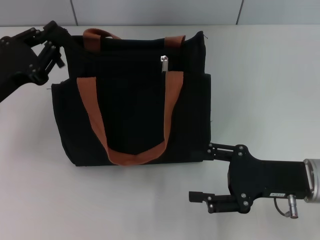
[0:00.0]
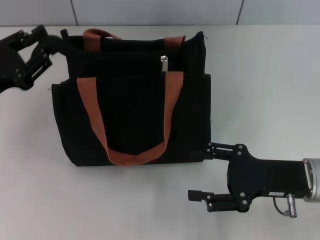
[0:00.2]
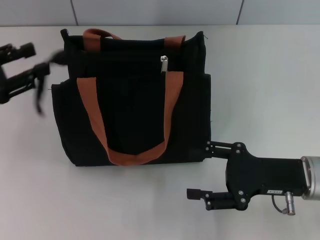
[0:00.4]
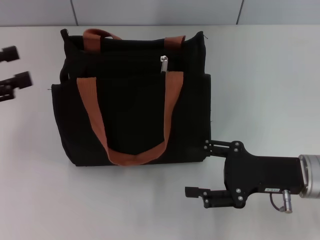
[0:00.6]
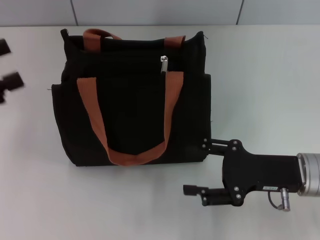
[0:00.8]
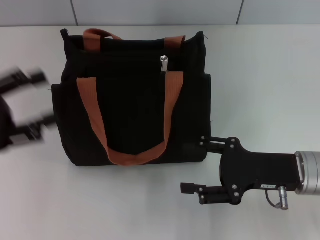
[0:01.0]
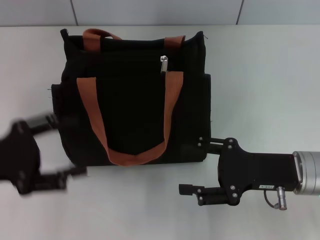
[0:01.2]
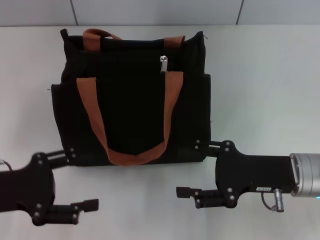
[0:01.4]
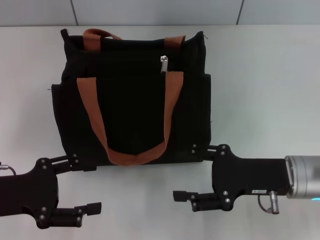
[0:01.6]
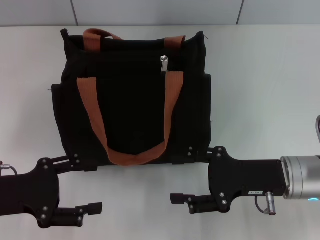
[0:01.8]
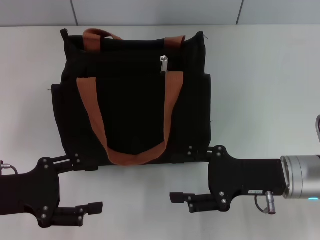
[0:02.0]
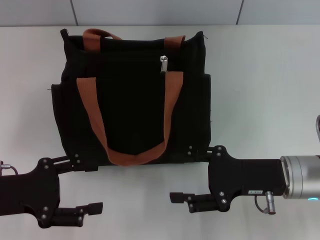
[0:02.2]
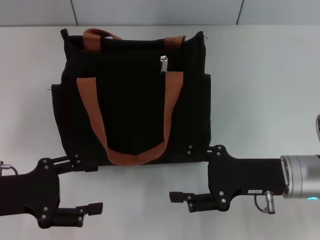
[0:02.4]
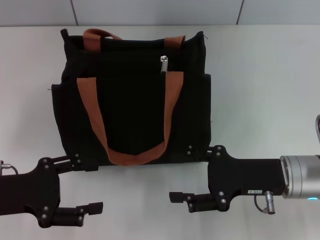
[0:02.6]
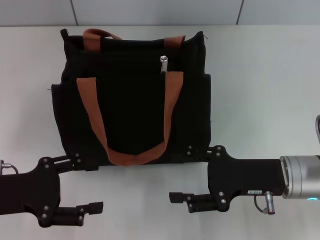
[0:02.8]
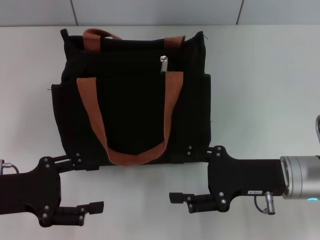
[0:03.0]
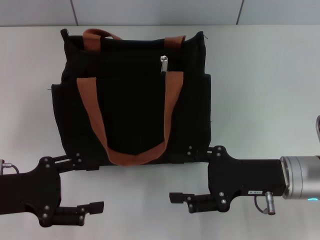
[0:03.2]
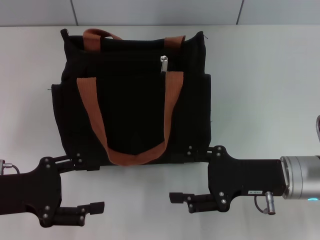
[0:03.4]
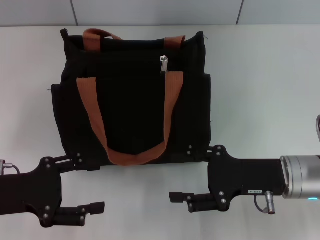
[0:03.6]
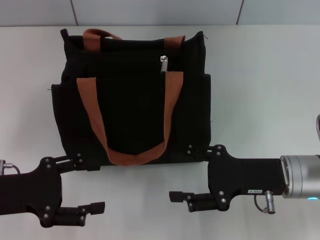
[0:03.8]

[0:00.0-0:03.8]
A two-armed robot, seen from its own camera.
0:00.0 to 0:01.2: The left gripper moves backward, approximately 5 cm, and opens its fingers.
0:01.2 to 0:02.6: The left gripper changes place by approximately 5 cm.
0:02.6 to 0:03.8: Both grippers stay put.

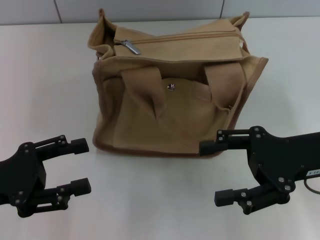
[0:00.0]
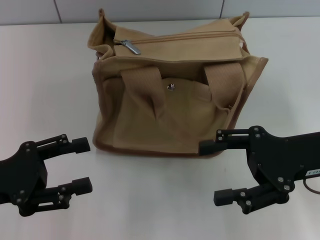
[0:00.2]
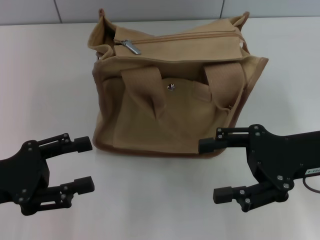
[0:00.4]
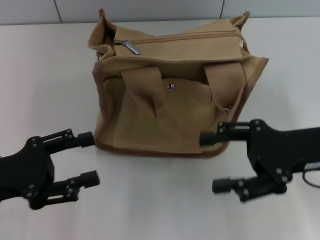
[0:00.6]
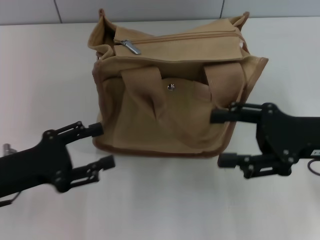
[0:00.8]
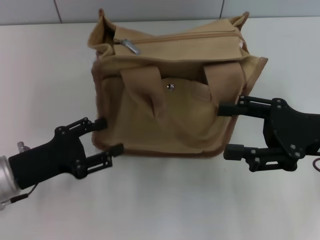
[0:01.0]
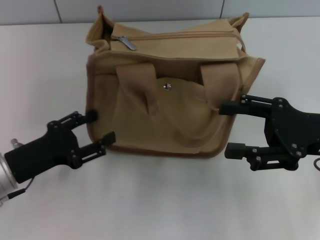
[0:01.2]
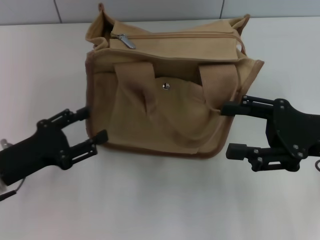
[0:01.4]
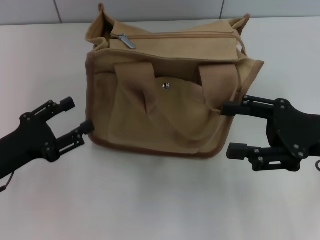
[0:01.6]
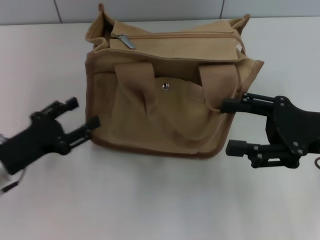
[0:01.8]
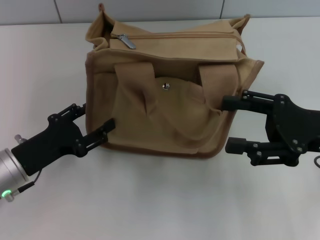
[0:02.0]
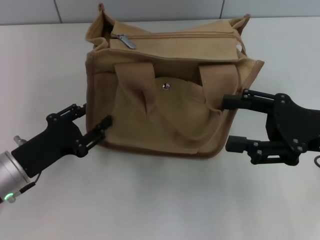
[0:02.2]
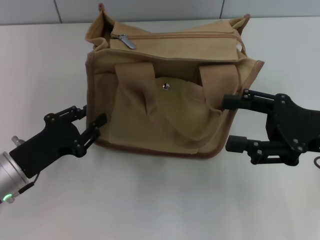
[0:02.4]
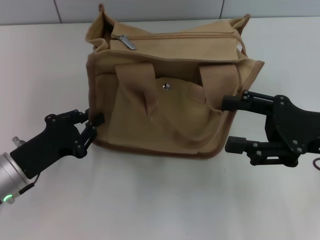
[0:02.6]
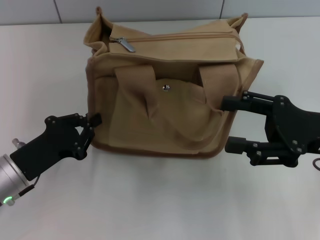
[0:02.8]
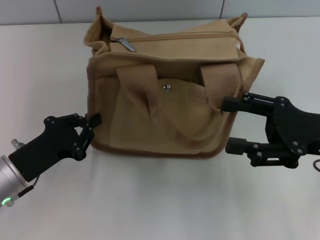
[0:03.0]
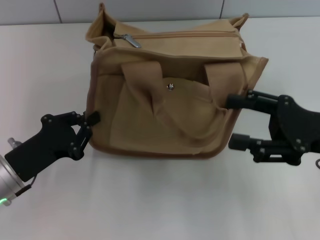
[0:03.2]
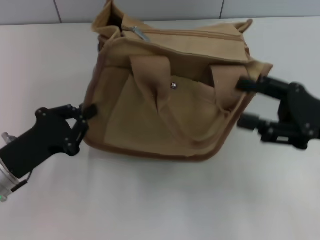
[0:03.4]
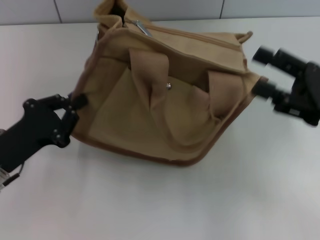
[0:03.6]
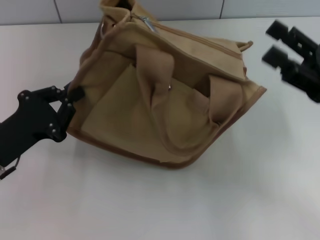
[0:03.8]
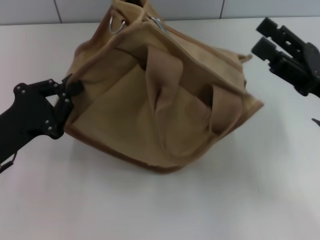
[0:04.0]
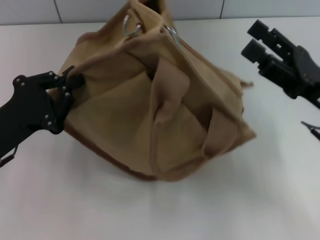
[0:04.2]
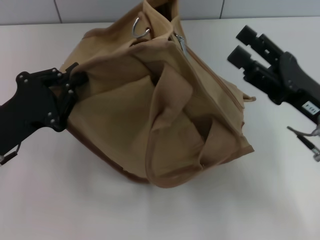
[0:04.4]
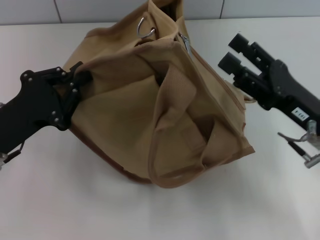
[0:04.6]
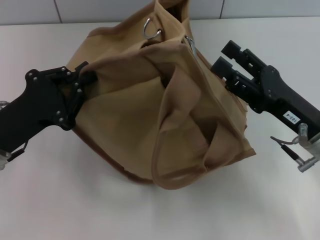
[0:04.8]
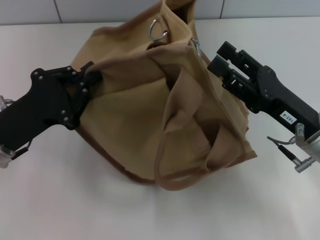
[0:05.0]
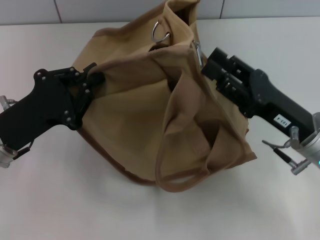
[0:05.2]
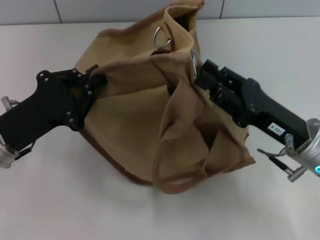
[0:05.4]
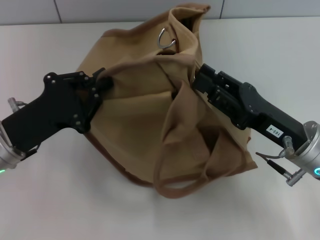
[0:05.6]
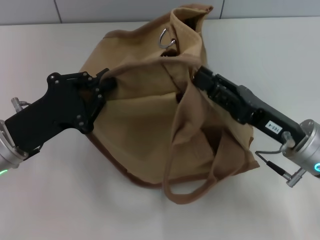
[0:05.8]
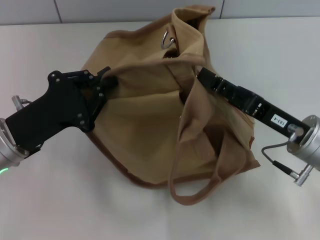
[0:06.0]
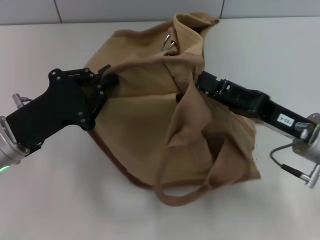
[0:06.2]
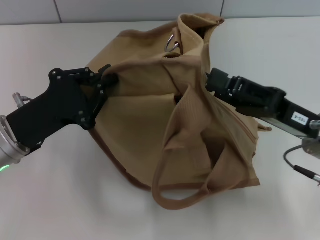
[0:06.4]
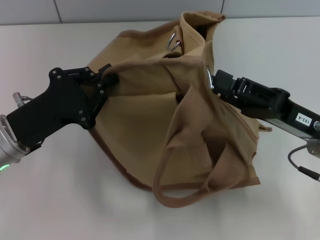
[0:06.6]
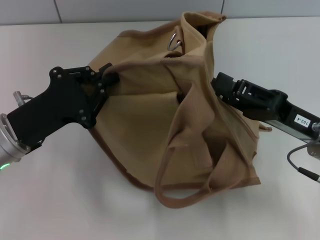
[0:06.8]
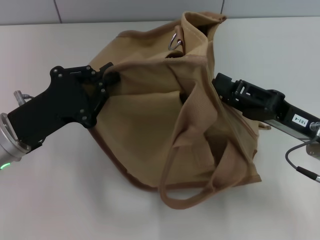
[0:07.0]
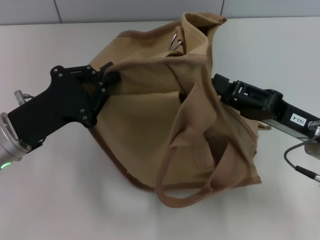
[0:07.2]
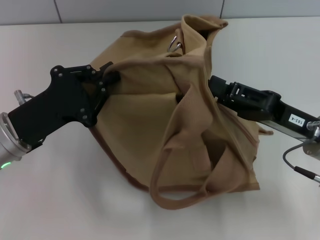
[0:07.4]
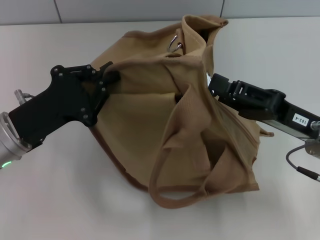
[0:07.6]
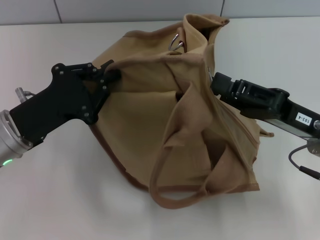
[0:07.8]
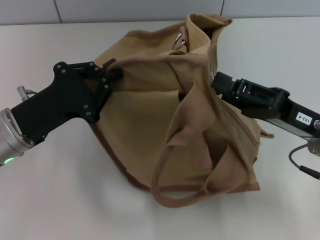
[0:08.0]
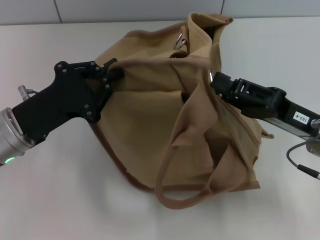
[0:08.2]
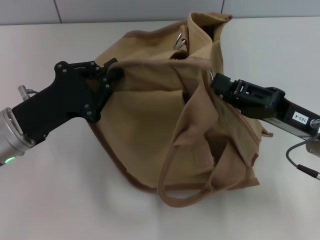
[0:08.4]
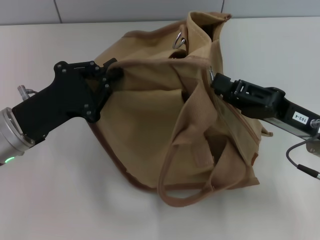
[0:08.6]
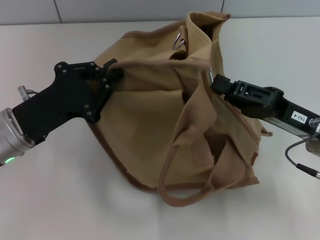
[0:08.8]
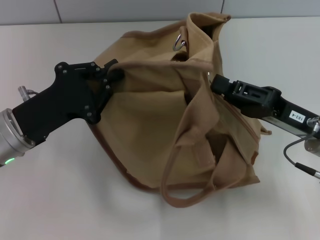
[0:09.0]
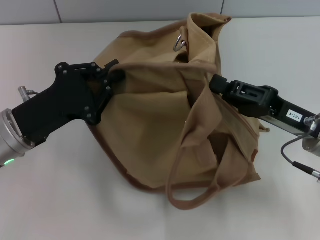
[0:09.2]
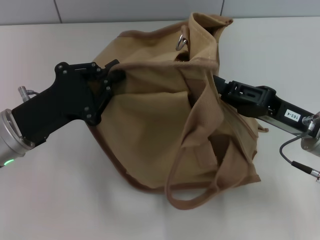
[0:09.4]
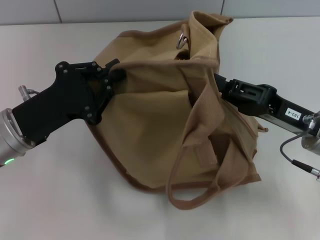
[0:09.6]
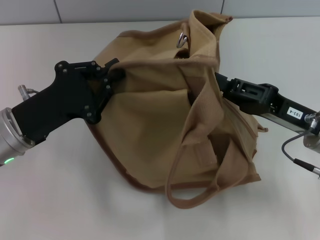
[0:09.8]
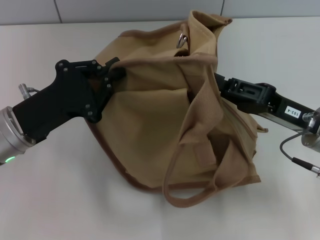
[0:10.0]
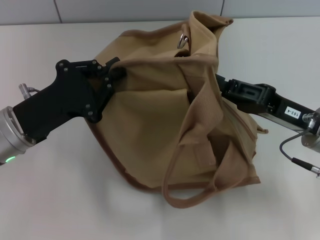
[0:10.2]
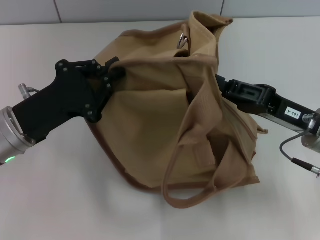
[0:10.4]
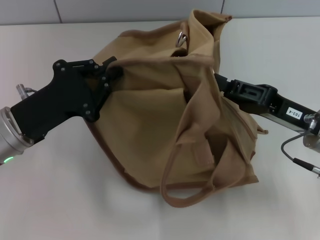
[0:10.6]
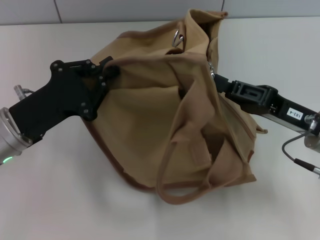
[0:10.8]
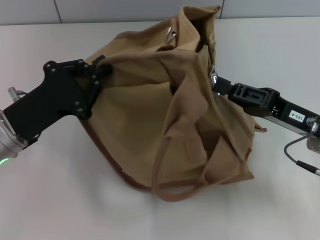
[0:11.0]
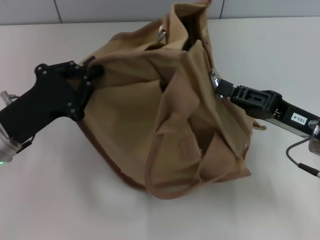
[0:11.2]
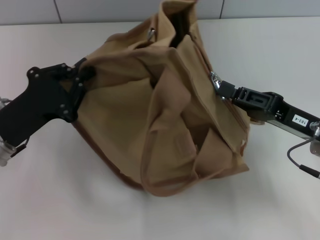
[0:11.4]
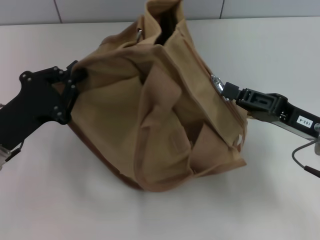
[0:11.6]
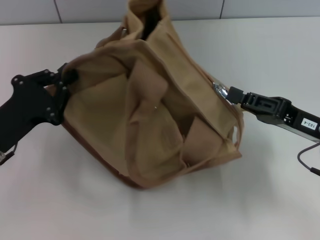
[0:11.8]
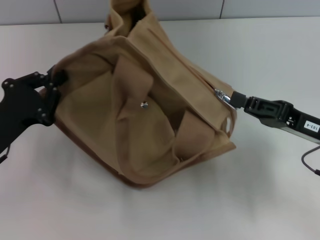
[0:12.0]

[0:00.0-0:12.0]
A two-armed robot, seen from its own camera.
0:01.6 to 0:03.0: The left gripper closes.
0:03.0 to 0:04.4: The left gripper heads upward, covering approximately 5 cm.
0:04.4 to 0:06.0: The right gripper closes its fingers.
0:06.0 to 0:09.0: There are only small adjustments of the grippers.
0:09.0 to 0:10.4: Neither gripper changes place.
0:10.4 to 0:12.0: The left gripper shifts roughly 5 cm to the left.

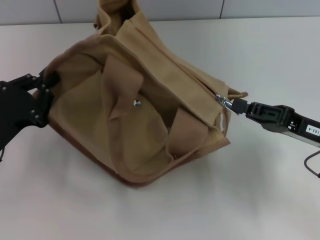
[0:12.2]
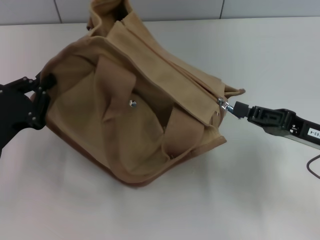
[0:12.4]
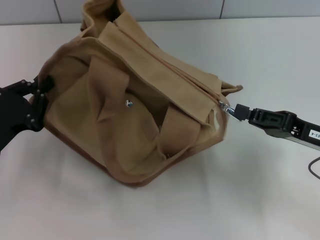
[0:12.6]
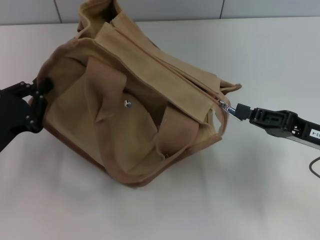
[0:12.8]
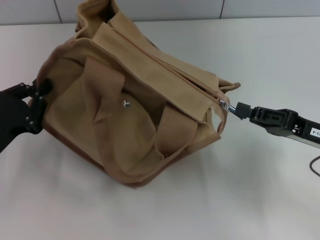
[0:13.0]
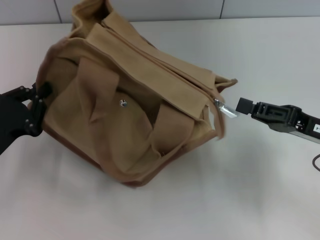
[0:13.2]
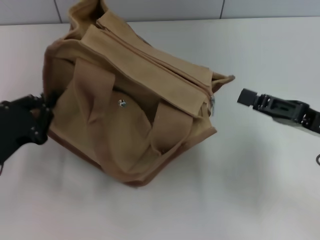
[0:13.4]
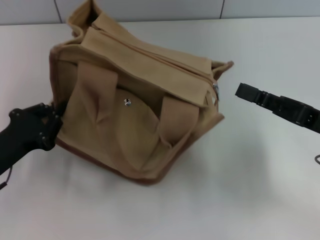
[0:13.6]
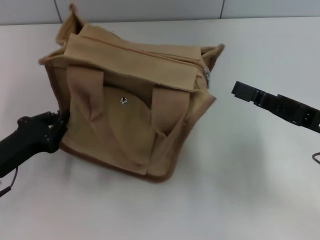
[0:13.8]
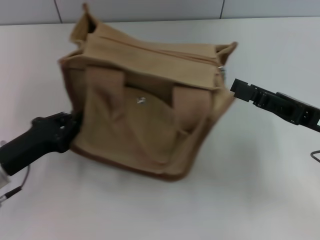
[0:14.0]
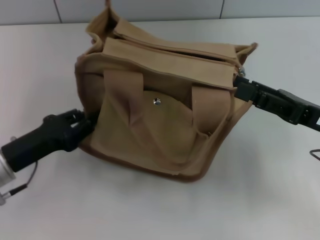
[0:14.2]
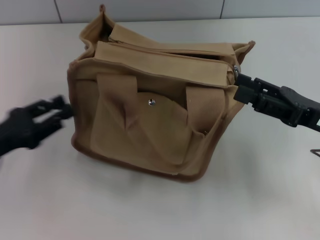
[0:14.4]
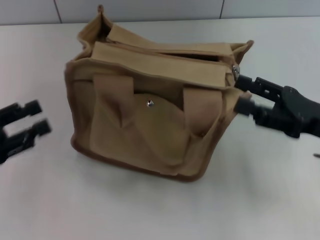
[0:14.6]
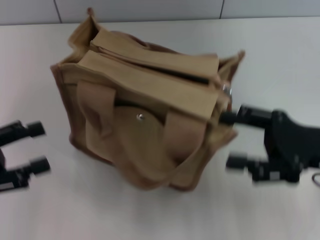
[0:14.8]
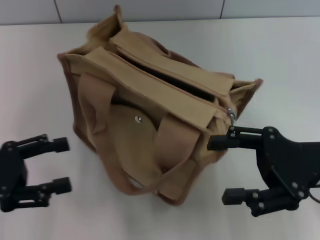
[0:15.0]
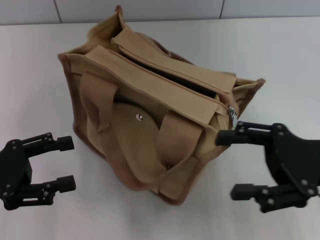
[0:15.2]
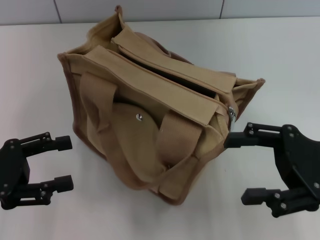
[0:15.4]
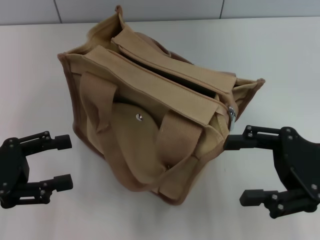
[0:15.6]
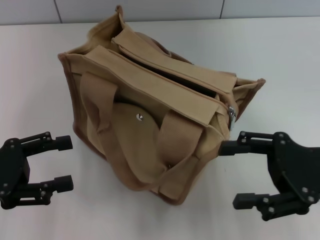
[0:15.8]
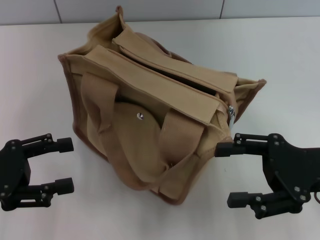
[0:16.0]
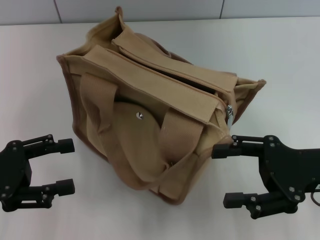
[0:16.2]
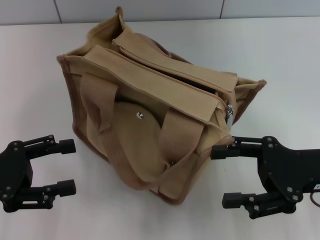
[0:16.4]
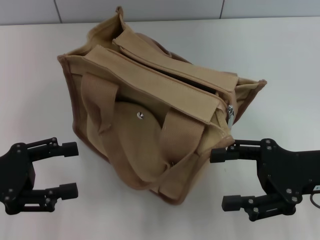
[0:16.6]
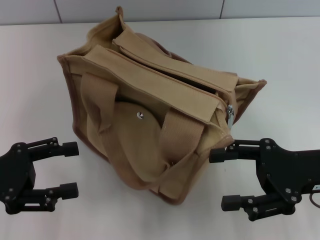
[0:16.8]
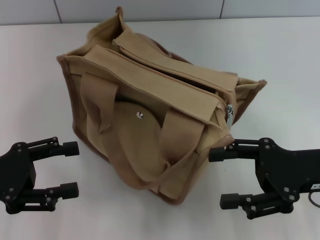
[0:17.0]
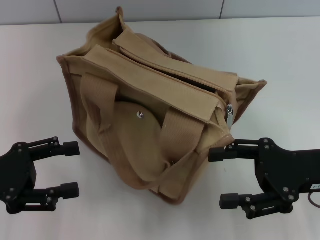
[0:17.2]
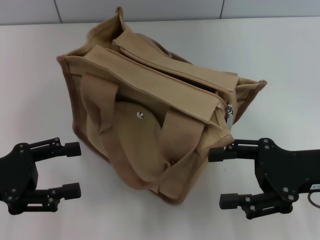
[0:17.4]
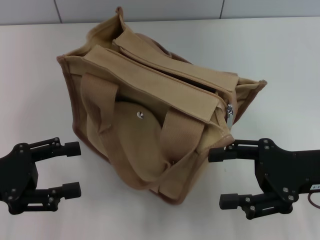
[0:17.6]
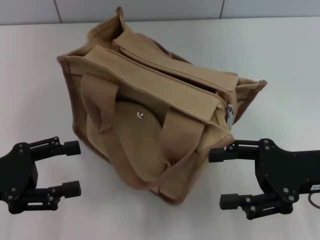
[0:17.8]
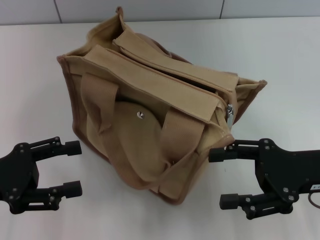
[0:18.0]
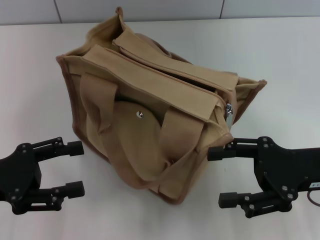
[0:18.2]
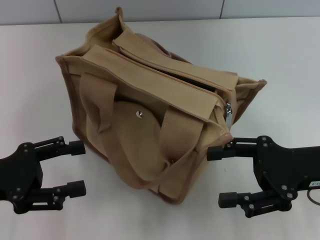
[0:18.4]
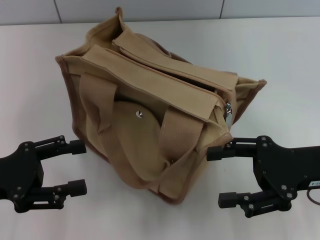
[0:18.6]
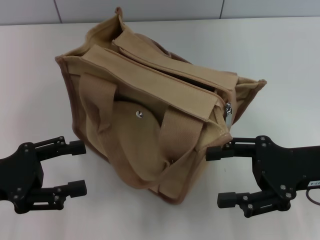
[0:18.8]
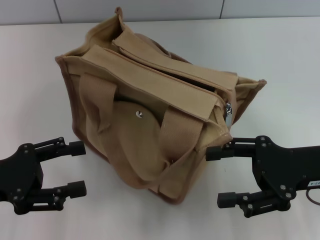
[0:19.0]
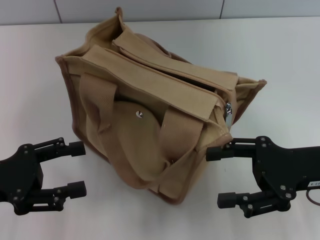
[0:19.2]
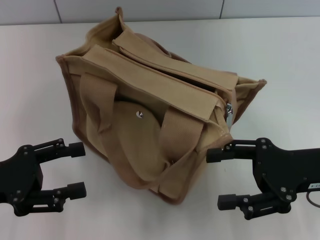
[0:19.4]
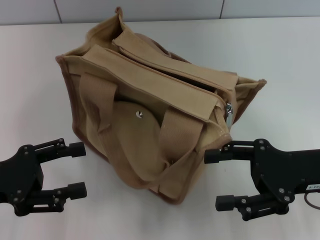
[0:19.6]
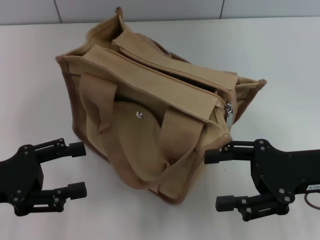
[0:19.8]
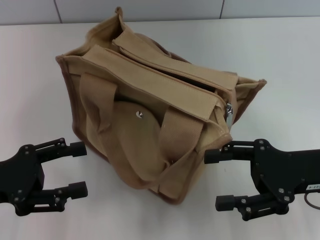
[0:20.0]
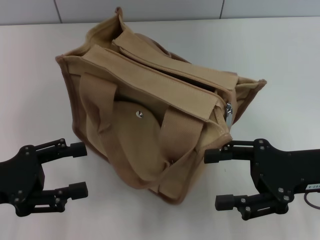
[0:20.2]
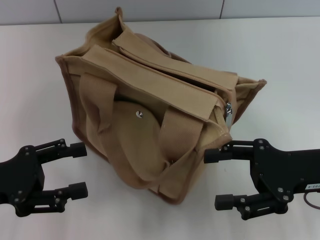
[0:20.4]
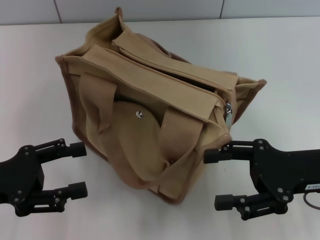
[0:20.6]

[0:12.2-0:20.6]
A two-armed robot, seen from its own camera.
Step, 0:13.4 to 0:14.4: Grab the bag with your left hand.
0:12.2 to 0:13.6: The right gripper opens its fingers.
0:13.6 to 0:15.0: The left gripper is displaced upward by approximately 5 cm, and opens; the right gripper opens its fingers.
0:15.0 to 0:16.4: The grippers make only small movements.
0:16.4 to 0:19.2: Both grippers stay put.
0:19.2 to 0:20.6: Both grippers stay about where they are.
